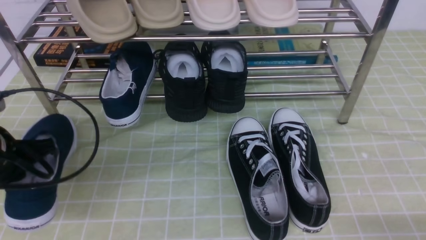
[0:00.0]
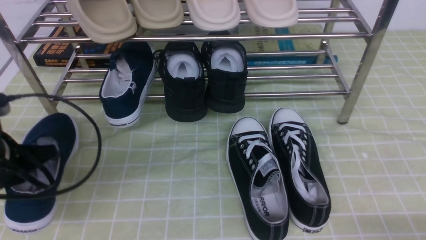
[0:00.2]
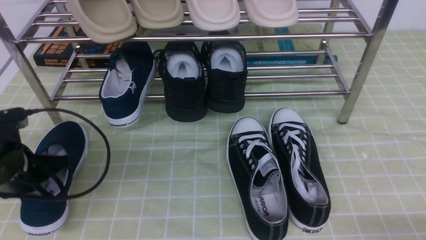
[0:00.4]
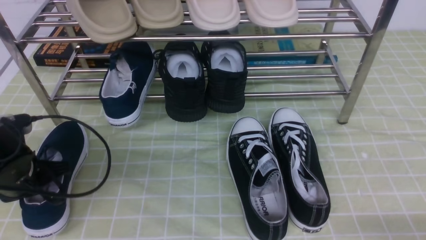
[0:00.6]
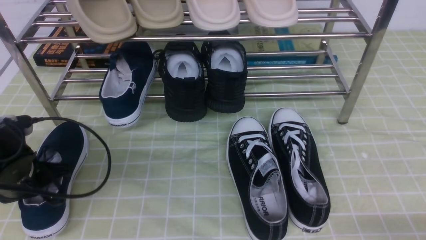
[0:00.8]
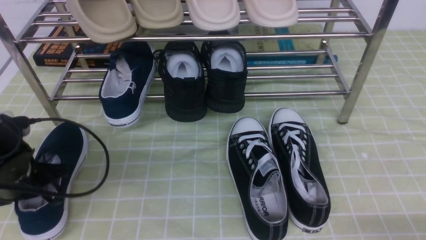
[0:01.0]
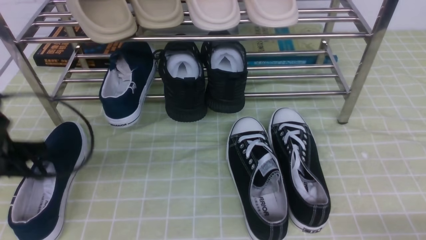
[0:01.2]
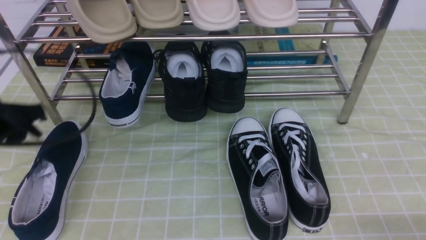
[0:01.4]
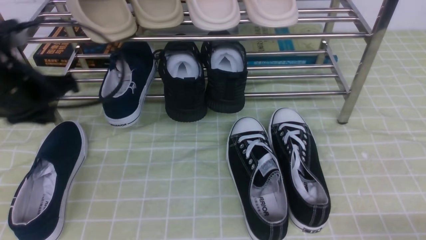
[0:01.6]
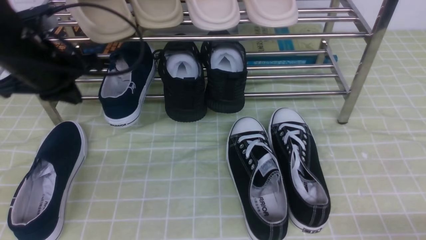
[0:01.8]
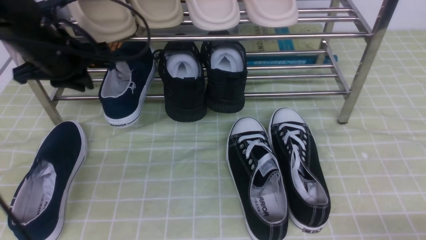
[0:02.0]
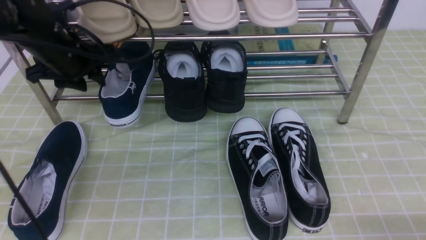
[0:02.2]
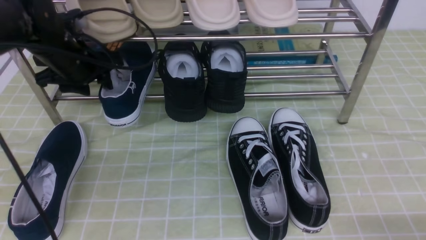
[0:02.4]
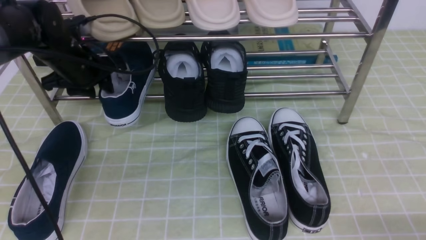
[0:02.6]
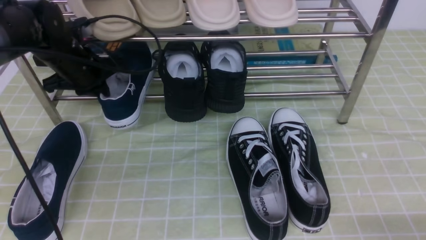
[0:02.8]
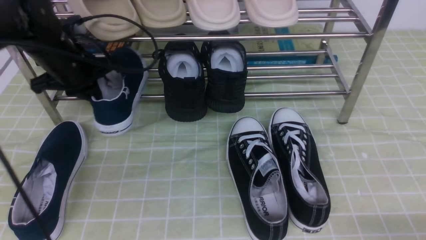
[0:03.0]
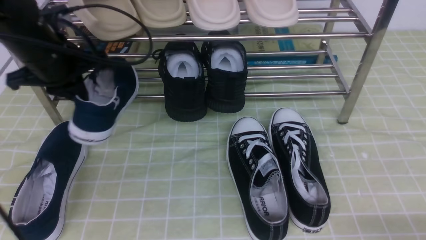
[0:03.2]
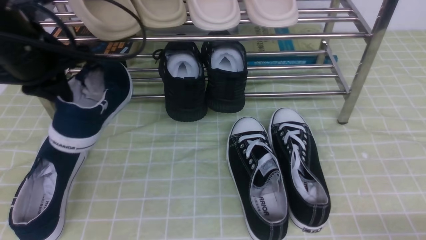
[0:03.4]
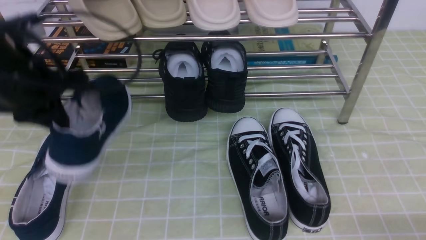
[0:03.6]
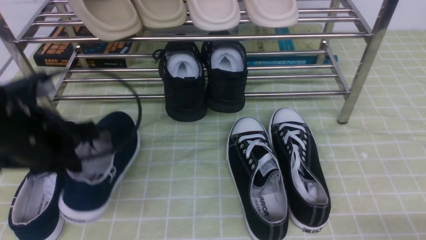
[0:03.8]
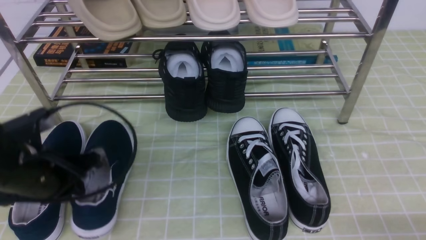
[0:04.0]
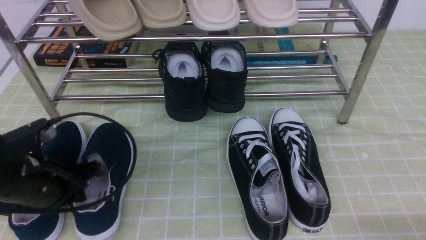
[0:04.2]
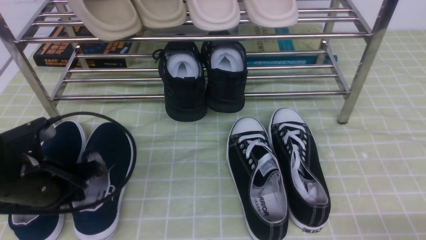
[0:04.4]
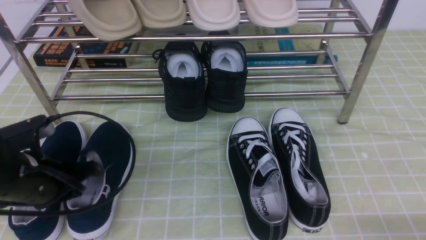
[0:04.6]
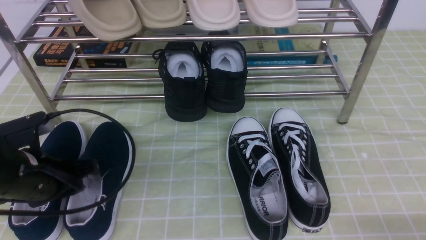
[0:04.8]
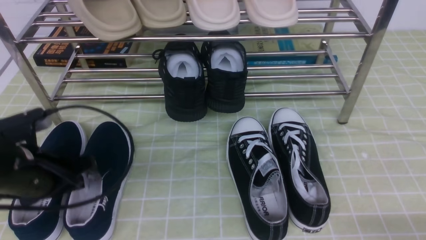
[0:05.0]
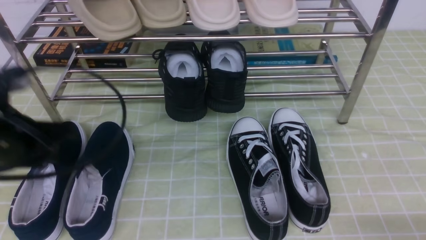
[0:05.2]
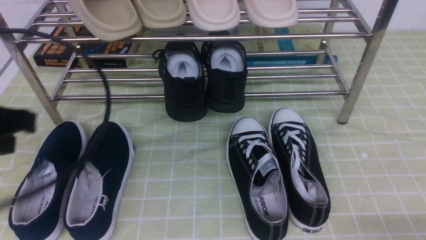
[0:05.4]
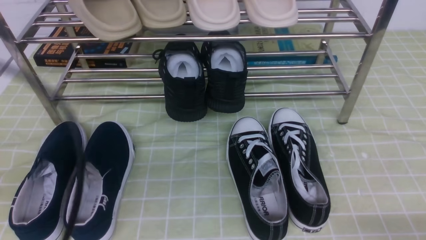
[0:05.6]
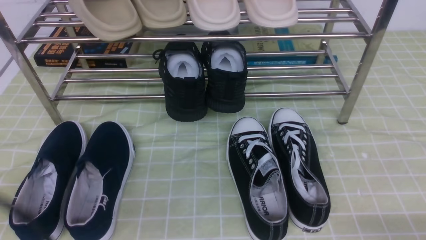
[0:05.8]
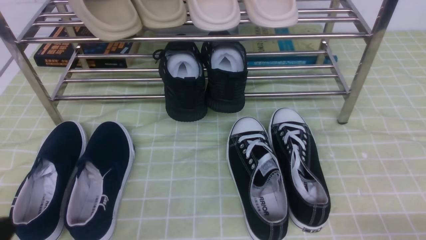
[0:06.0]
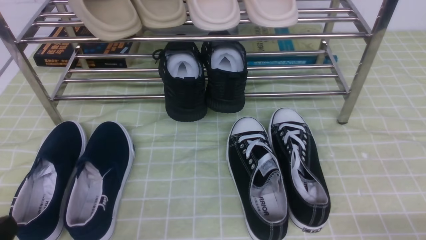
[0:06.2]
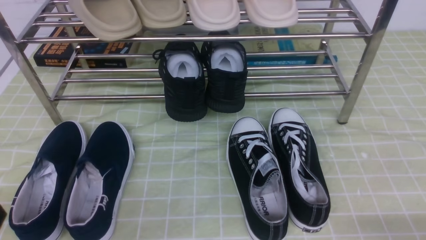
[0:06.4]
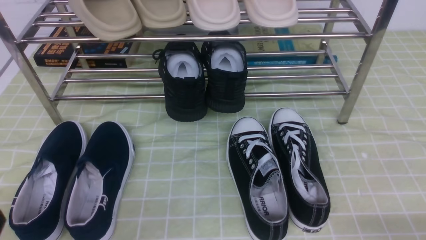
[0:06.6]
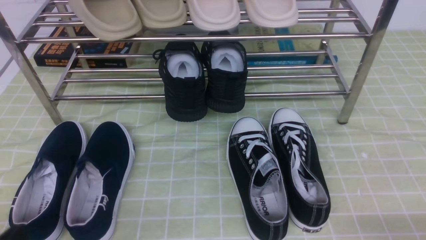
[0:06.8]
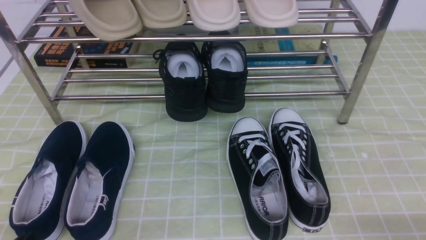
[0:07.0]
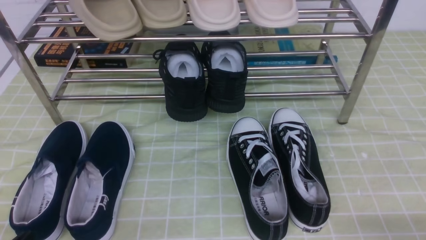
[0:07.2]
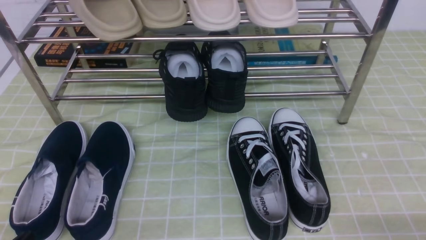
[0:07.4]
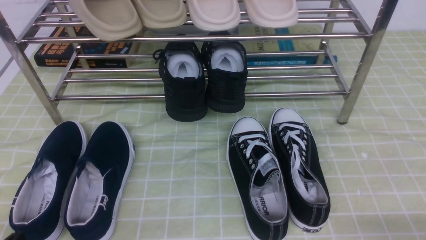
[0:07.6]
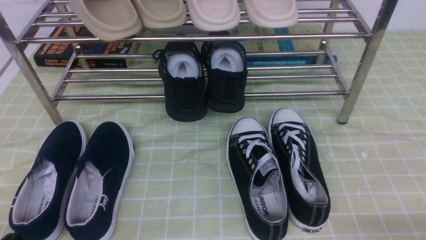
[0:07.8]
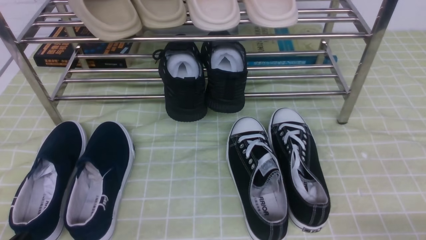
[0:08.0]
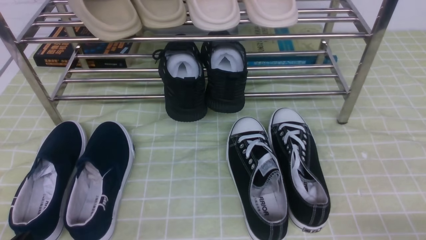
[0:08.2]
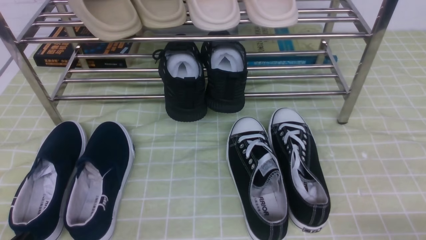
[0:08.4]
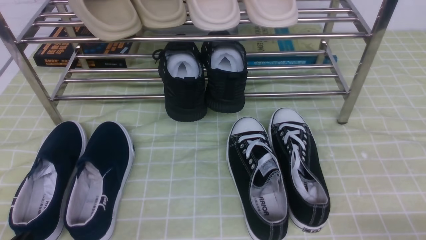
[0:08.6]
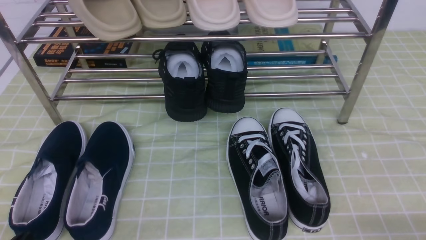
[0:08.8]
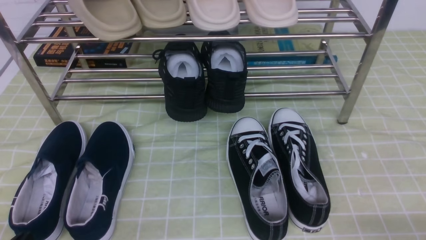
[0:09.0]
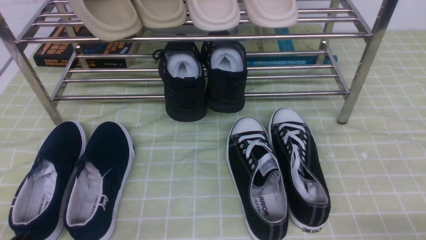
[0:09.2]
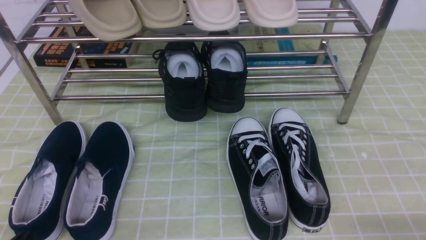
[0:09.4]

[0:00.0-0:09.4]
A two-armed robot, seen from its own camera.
Step, 1.2 to 2.8 s: use the left arm to clamp a shoe on the left side of the shoe rack.
Step, 3.0 to 5.2 s: Use your left arm to remove the clamped shoe from the shoe rack and put it down.
0.0 to 1.6 s: The left gripper shifts some 10 cm upward and forward, and opens and closes again.
1.6 to 3.2 s: The left gripper shifts approximately 5 cm forward, and opens, then closes once more.
3.2 to 4.8 s: The left gripper is displaced backward and downward by approximately 15 cm, and opens up.
4.8 to 6.2 s: The left gripper goes about 20 cm backward, and closes up.
7.8 to 9.4 s: Both grippers stay about where they are.

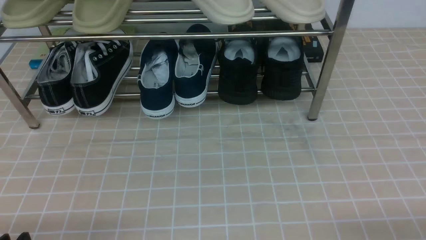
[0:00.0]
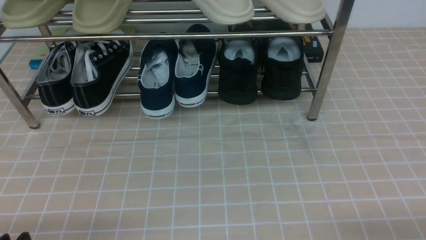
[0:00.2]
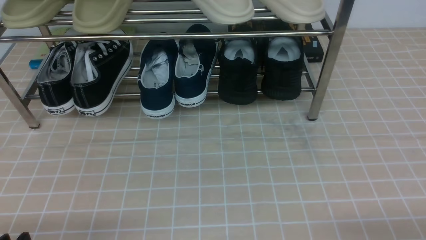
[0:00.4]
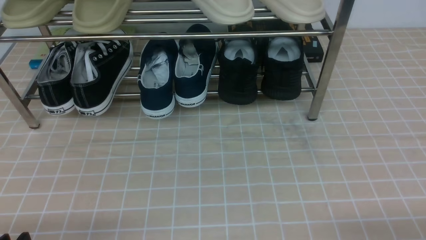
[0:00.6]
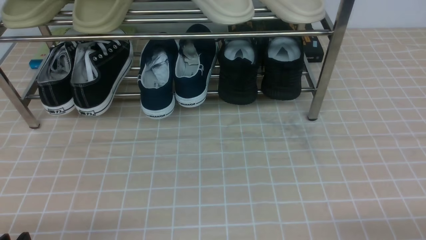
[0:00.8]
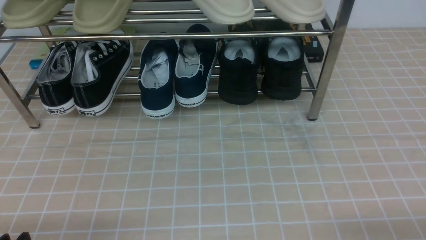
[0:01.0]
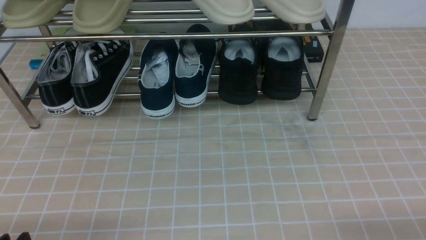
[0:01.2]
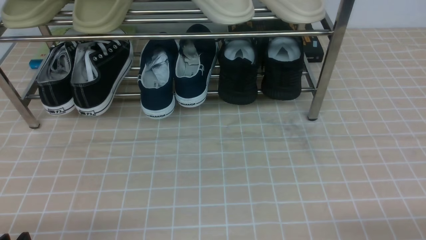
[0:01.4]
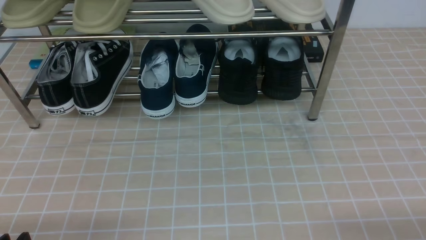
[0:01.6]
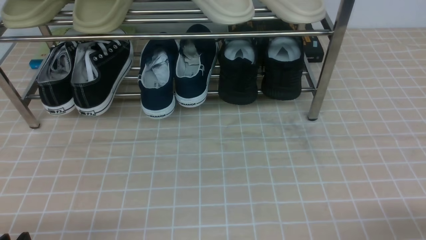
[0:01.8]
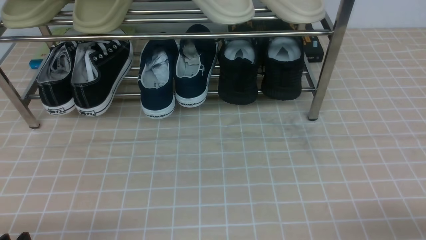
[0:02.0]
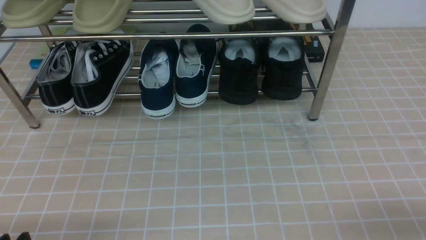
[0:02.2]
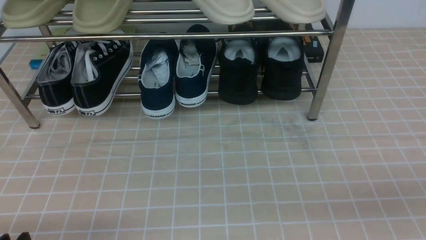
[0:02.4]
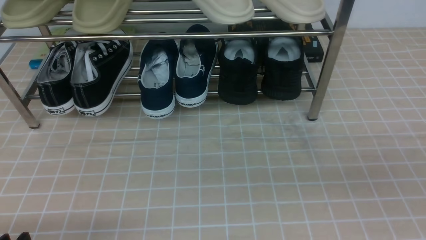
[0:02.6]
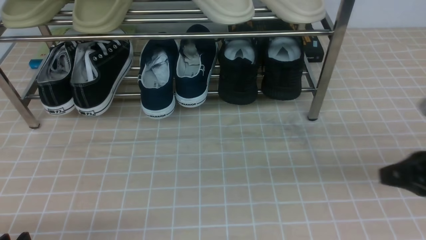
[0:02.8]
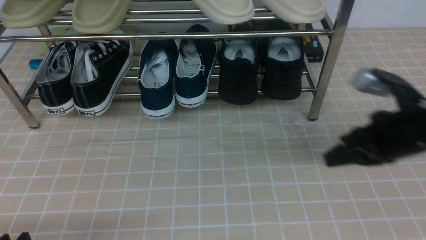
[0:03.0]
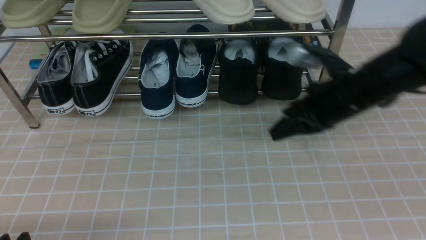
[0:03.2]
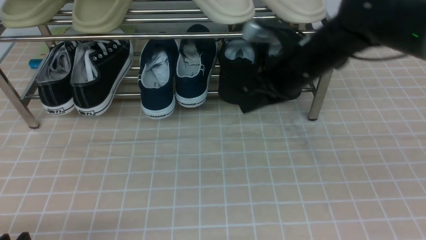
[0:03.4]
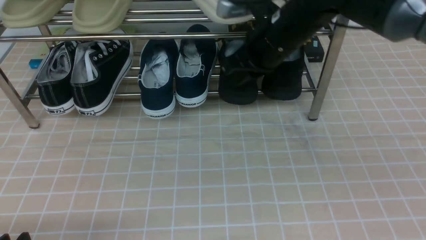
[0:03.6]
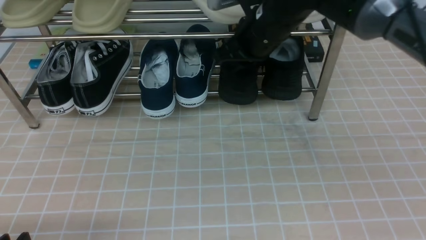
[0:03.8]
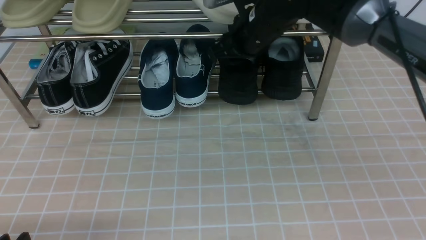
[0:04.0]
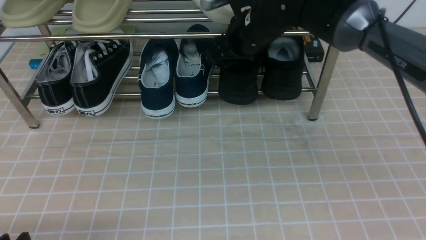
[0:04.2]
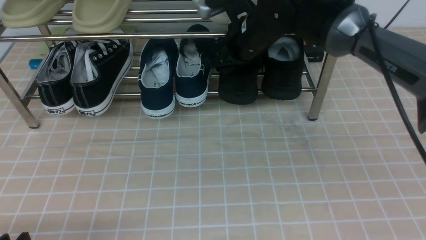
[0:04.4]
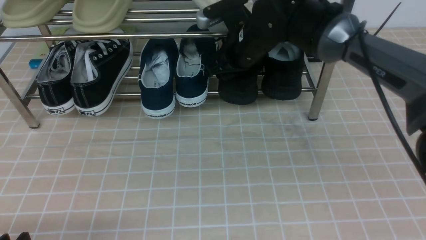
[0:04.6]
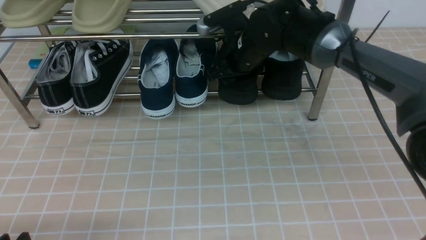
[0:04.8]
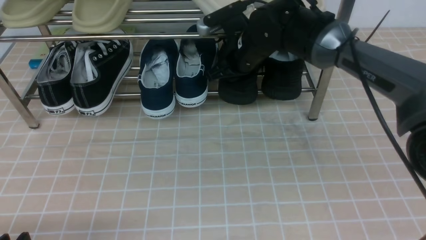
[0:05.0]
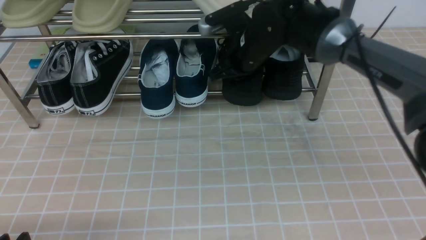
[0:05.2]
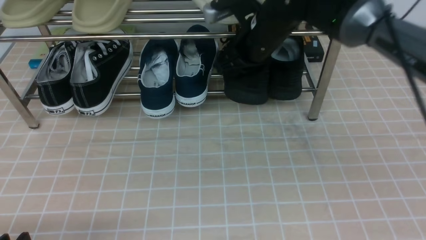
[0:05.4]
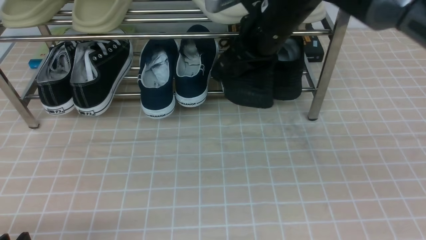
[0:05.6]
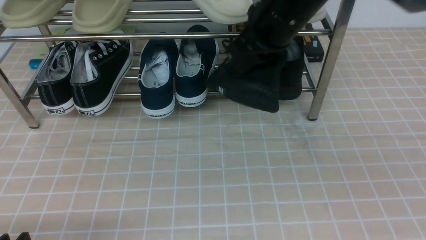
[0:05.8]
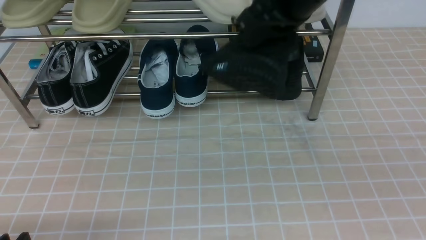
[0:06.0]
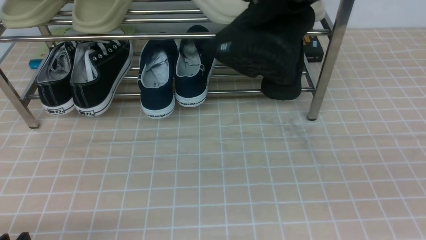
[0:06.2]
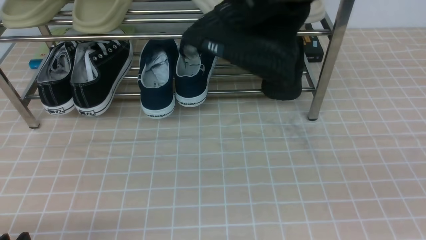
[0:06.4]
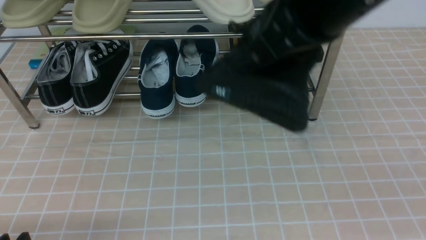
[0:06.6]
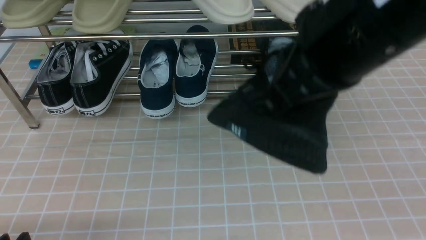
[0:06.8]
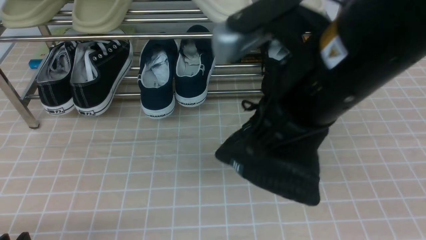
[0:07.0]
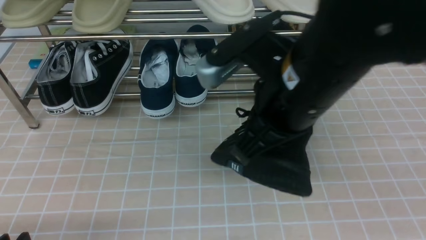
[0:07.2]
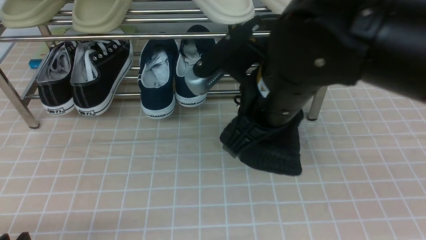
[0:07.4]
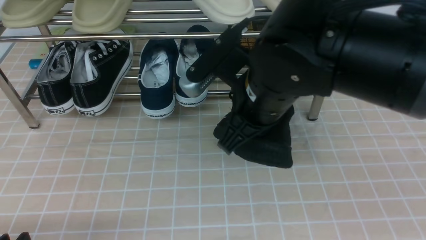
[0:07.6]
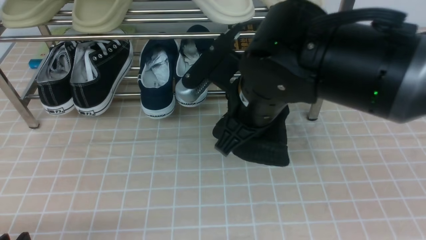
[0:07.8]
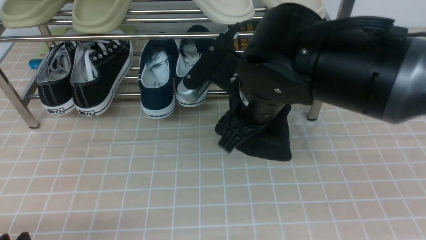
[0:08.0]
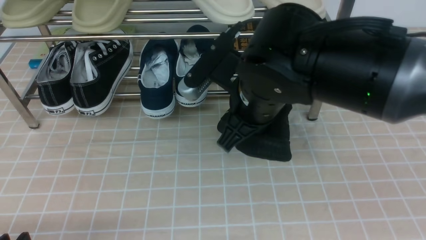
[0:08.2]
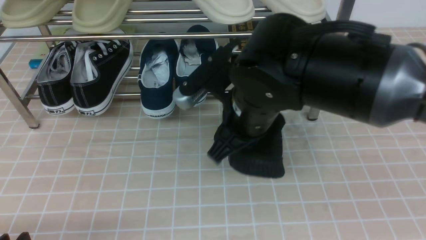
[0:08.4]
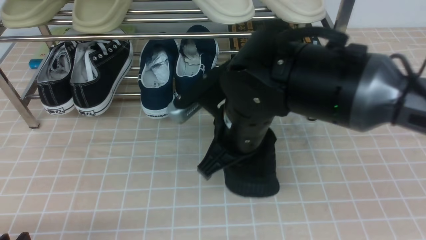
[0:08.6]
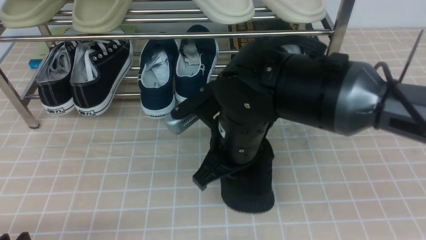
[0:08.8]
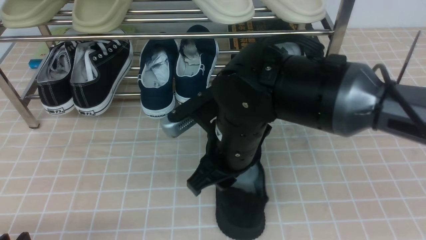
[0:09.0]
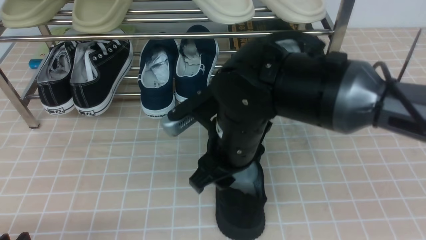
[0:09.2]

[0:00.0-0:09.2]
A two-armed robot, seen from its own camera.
Step, 0.0 to 4.8 s: use the right arm to clamp a shoe on the right side of the shoe rack.
Step, 5.2 to 9.0 s: use the right arm to take out the clamped shoe from the shoe rack and put it down.
1.6 to 3.0 s: The right gripper heads forward, upward and to the left, covering approximately 20 cm, and closes its fingers.
3.0 to 4.6 s: The right gripper is displaced forward and to the left by roughly 30 cm, and opens up.
4.6 to 6.2 s: The right gripper shifts roughly 20 cm upward and backward, and closes.
6.2 to 7.6 s: The right gripper moves downward, backward and to the left, about 15 cm.
7.6 to 9.2 s: The right gripper travels downward by roughly 5 cm, and opens its fingers.
